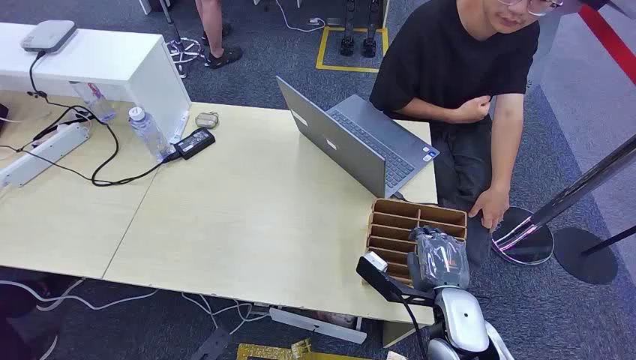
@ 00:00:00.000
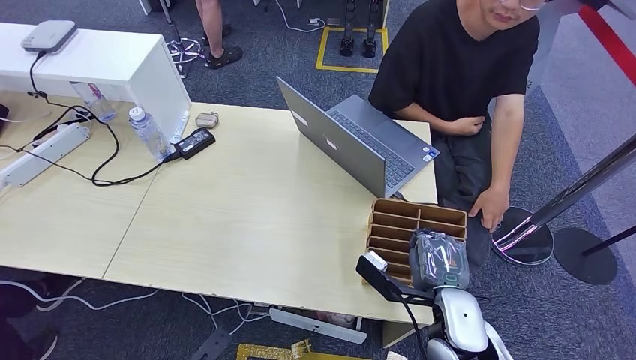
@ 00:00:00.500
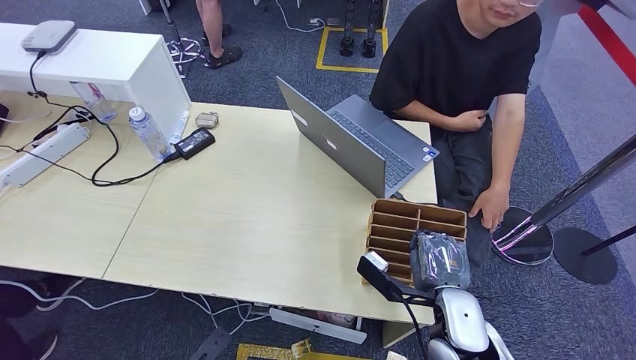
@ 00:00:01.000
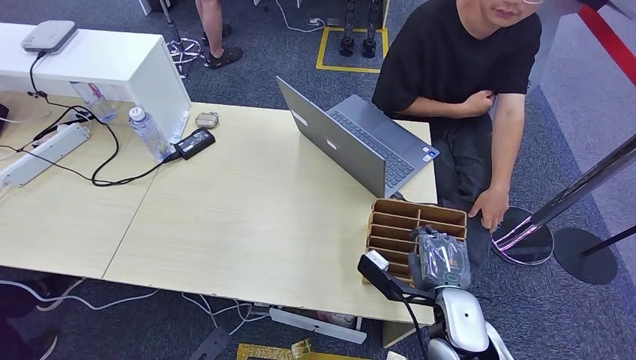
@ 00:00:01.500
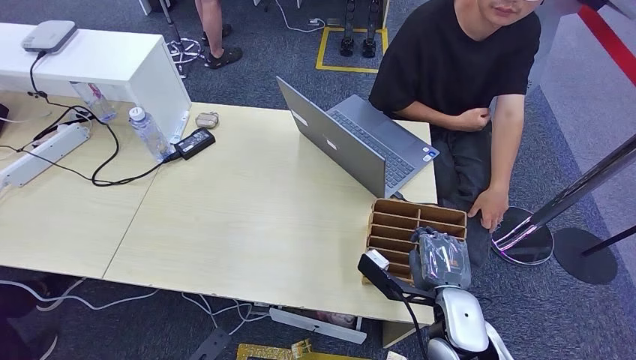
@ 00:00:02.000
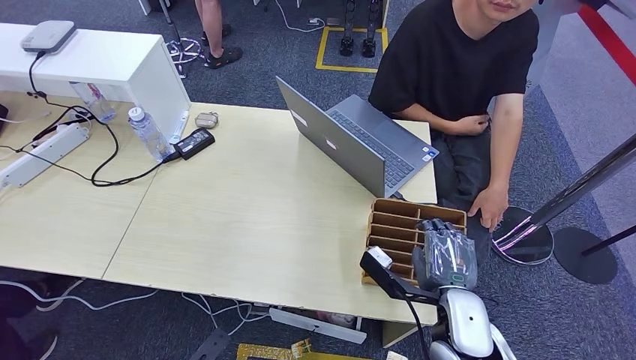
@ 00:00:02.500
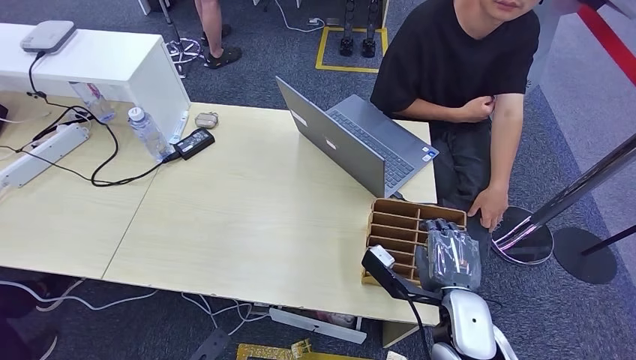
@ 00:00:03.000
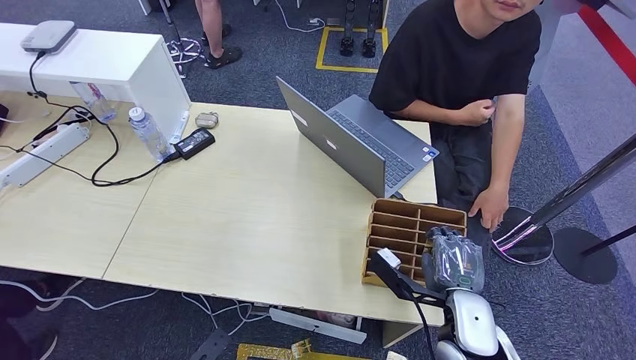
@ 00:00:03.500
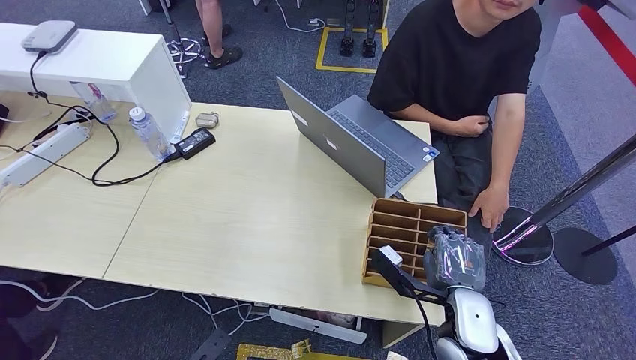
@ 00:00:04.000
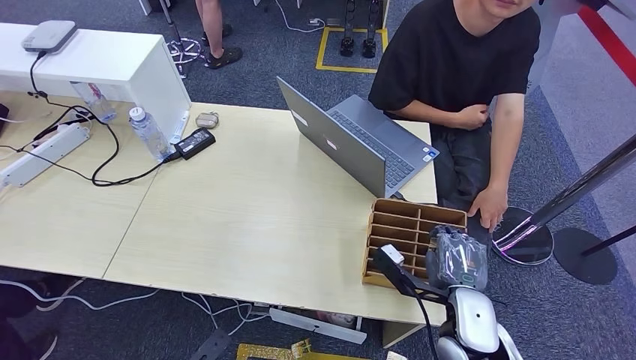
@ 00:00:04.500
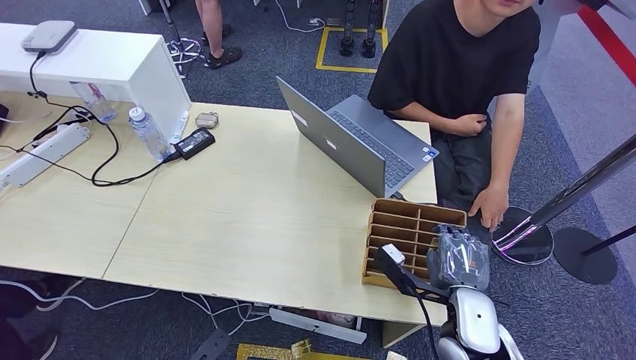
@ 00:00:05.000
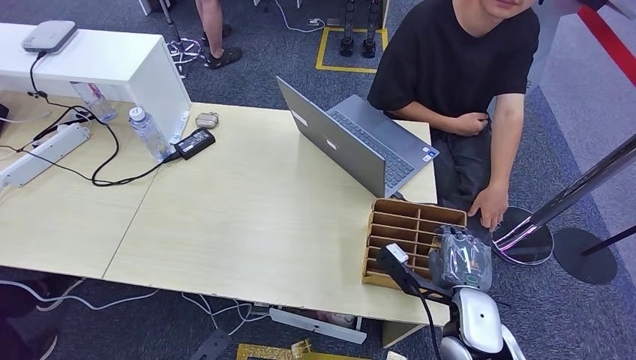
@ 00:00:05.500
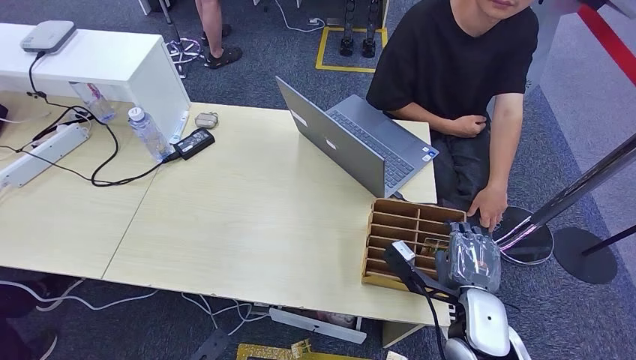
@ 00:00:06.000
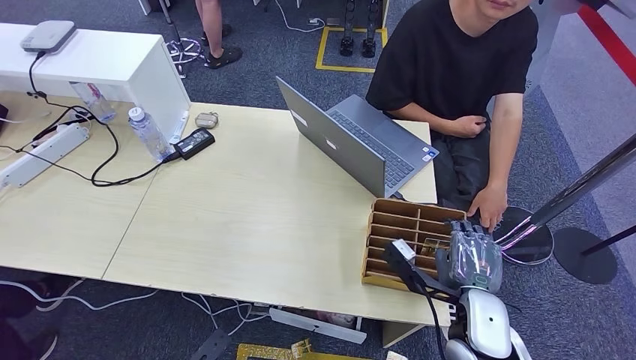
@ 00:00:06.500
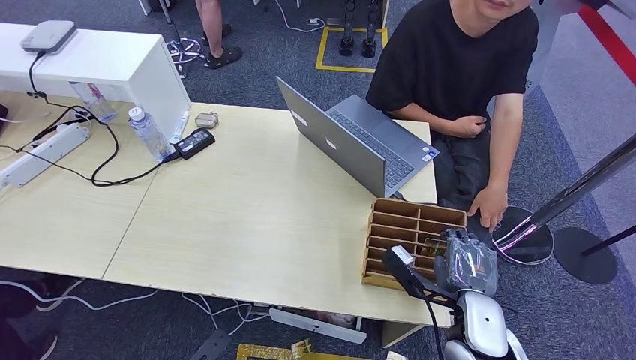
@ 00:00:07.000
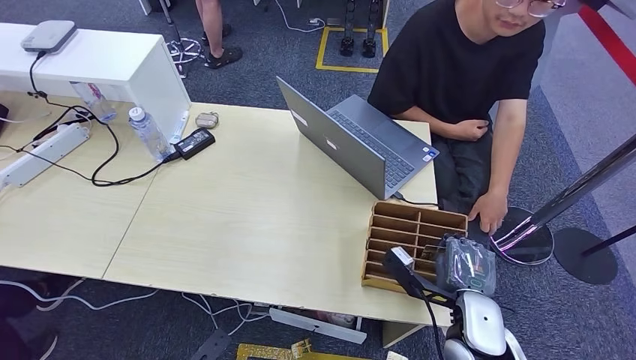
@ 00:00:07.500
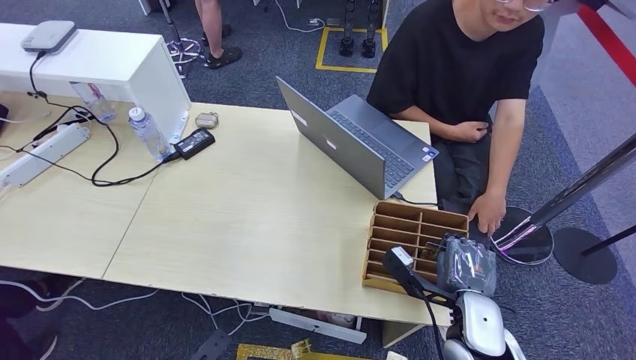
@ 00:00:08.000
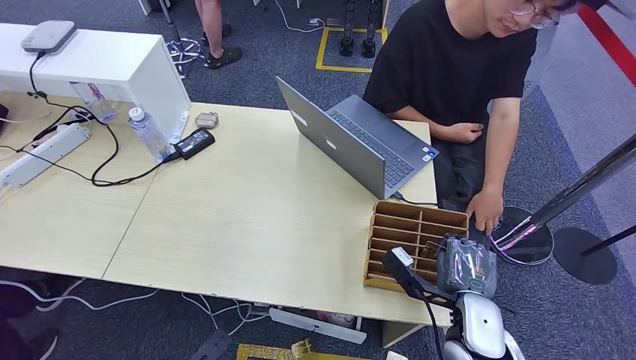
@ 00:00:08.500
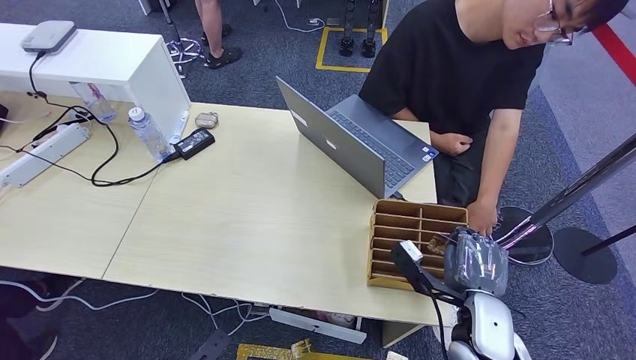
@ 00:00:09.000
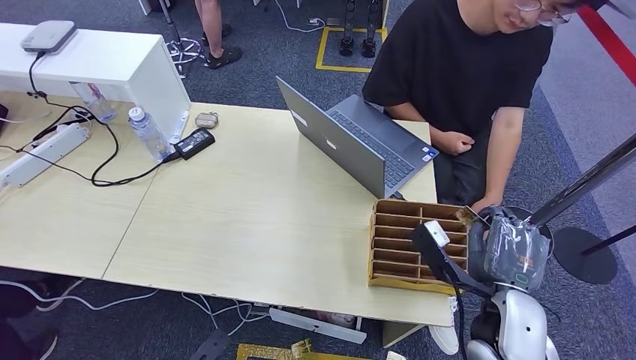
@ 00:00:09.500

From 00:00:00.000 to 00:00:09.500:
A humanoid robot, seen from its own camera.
Step, from 00:00:00.000 to 00:00:08.000: Pick up the key card from the card box.
Step, from 00:00:08.500 to 00:00:09.500: Hand the key card to the target.
From 00:00:02.000 to 00:00:04.000: There are only small adjustments of the hands.
From 00:00:04.000 to 00:00:05.500: Neither hand changes place.
From 00:00:05.500 to 00:00:07.500: The hands stay close to where they were, moving slightly.
From 00:00:07.500 to 00:00:09.500: The right hand heads upward, covering about 5 cm.
